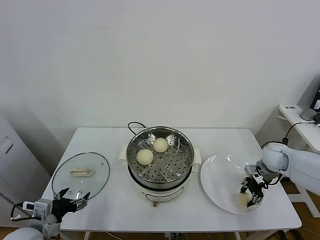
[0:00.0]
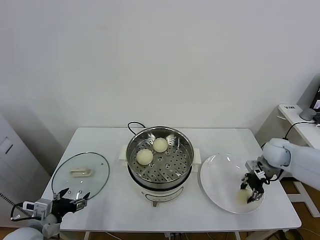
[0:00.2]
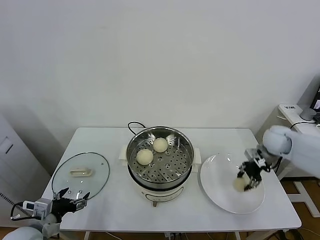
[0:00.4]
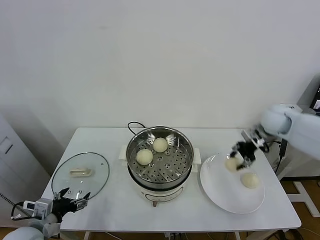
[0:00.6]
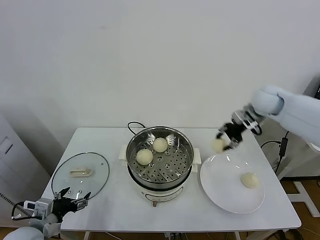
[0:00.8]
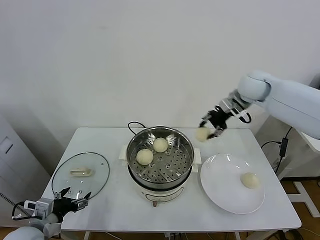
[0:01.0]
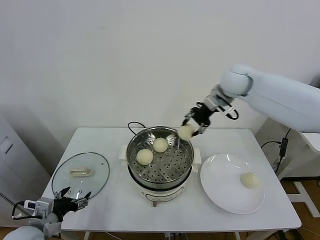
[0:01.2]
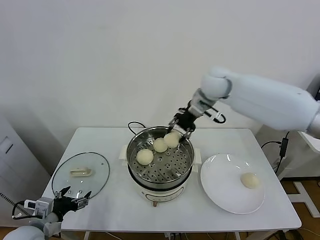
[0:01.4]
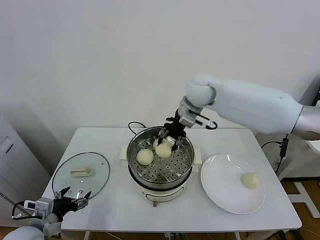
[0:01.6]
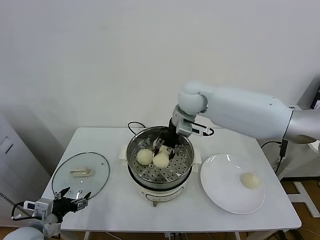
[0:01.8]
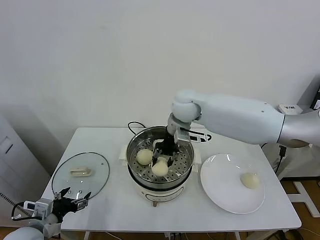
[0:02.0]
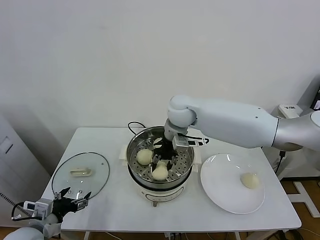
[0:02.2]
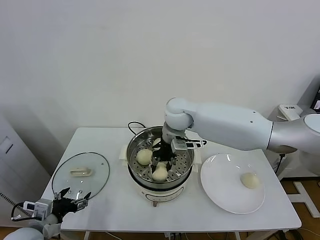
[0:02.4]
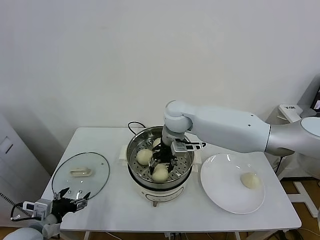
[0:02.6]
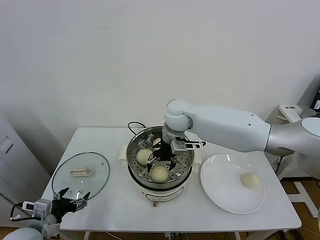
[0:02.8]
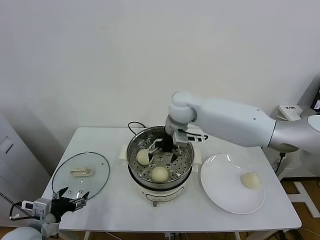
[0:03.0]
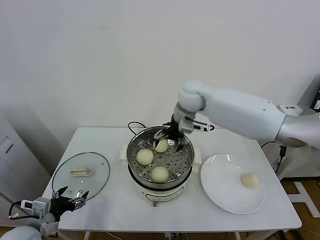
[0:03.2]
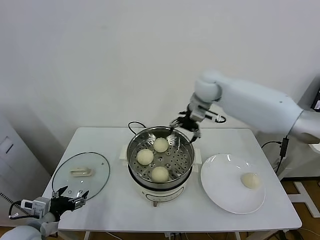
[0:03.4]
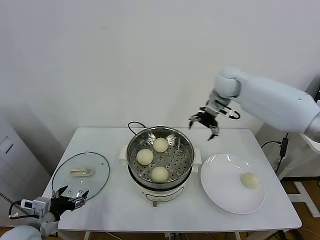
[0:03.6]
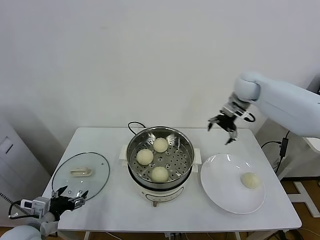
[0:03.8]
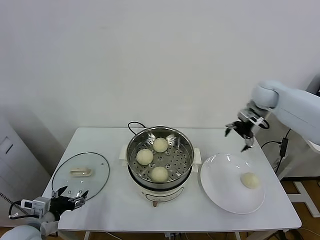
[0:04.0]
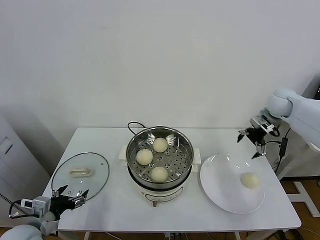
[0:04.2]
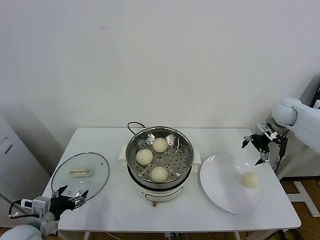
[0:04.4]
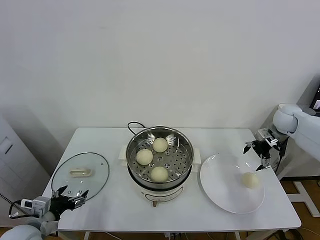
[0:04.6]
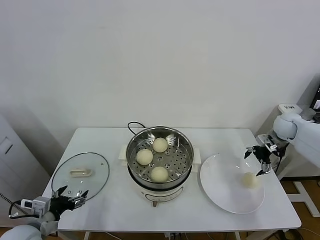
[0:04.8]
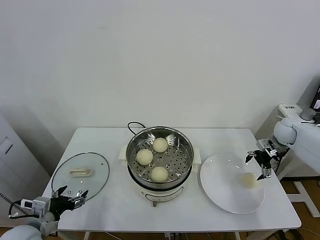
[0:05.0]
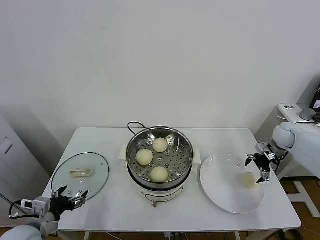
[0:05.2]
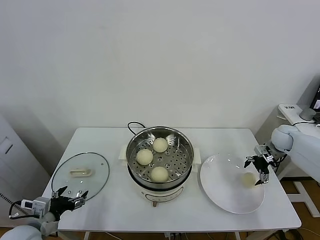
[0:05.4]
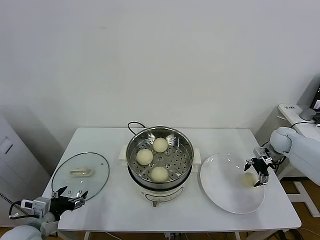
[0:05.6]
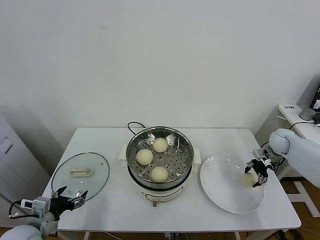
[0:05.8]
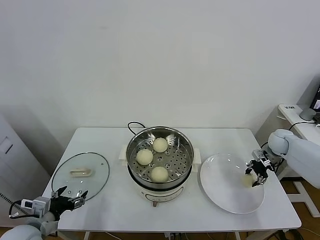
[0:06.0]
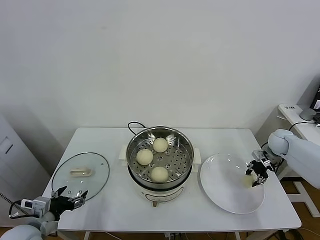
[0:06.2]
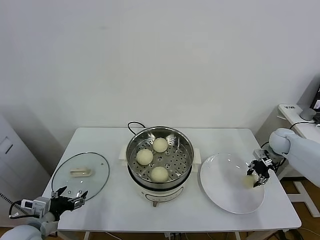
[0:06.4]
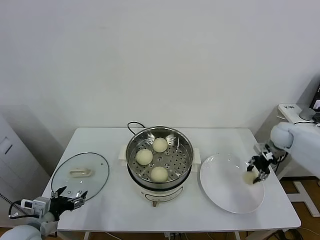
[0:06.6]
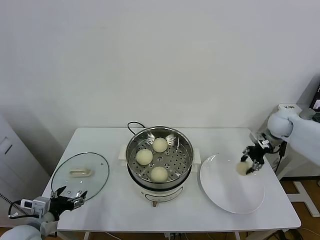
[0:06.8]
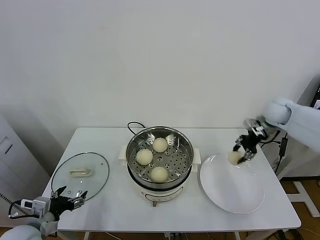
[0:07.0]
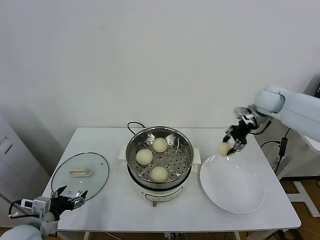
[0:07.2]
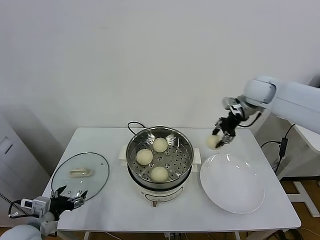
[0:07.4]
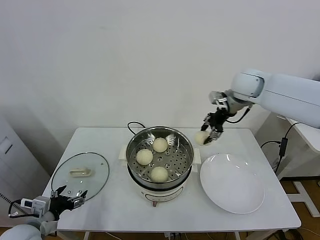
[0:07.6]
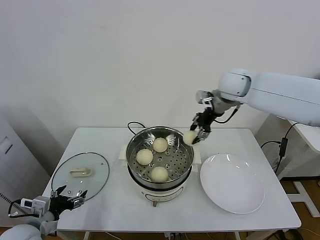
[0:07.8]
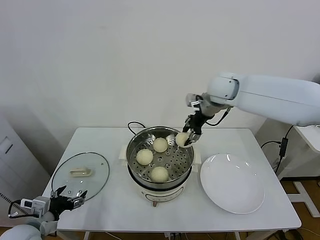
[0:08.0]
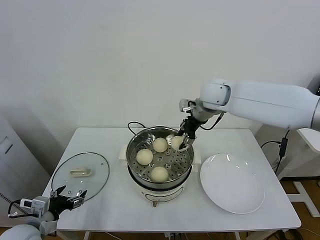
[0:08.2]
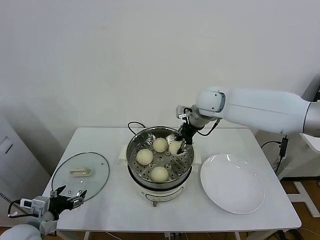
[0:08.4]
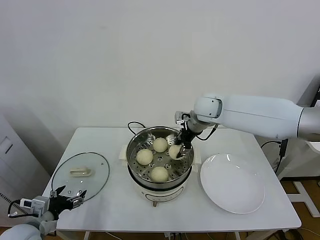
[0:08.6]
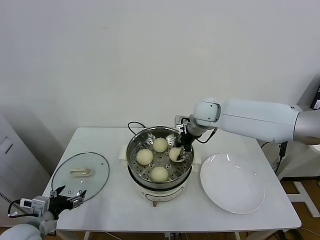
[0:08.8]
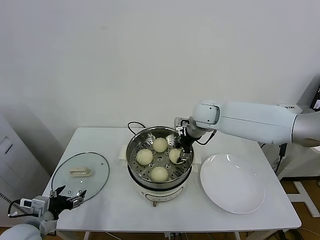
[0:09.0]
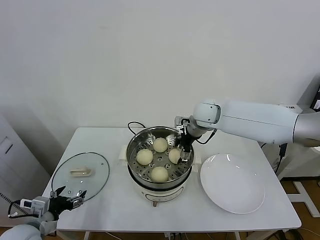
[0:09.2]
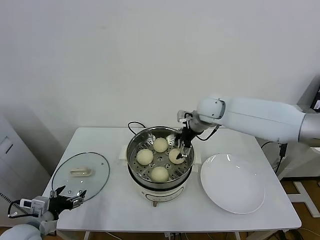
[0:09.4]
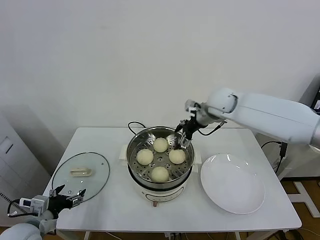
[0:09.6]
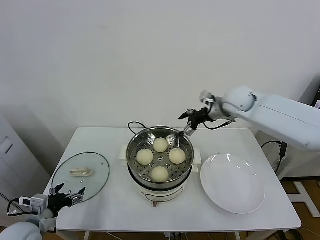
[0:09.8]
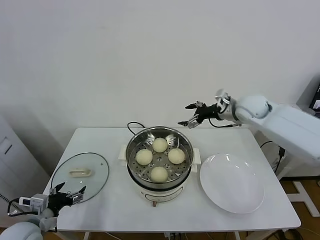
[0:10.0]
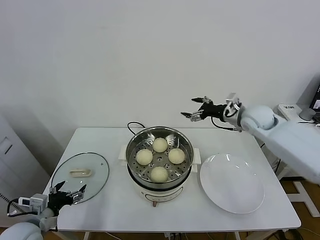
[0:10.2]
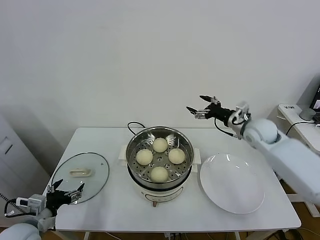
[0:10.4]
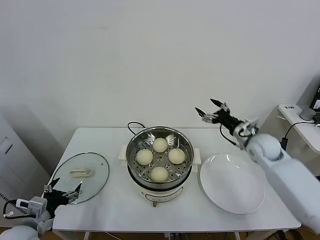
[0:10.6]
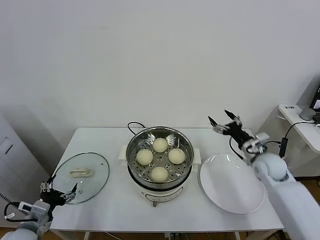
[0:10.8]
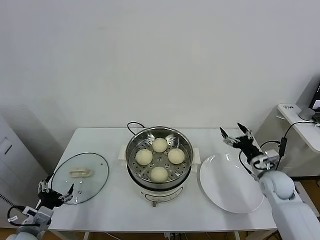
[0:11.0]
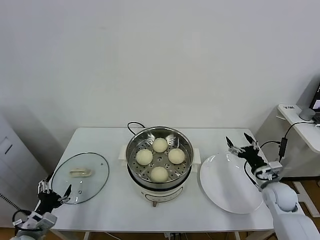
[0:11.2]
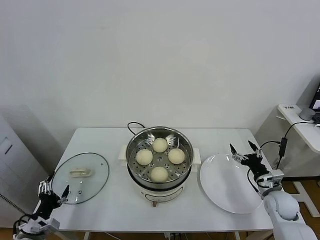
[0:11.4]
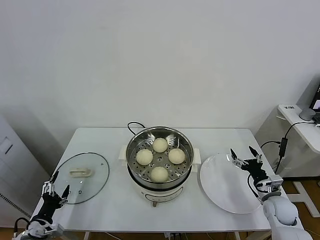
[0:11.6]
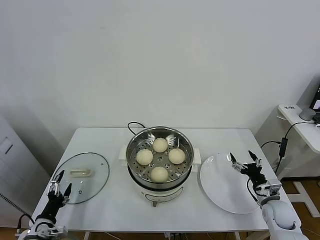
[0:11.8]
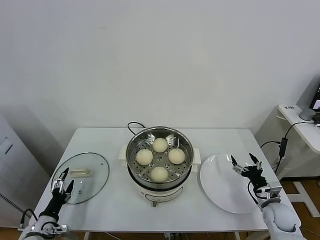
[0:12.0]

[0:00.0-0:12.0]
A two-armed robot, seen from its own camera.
Task of the whole recording: take steamed baozi put them in steamer.
Step, 0:00.0 to 0:02.8: Place the baozi on the steamer with right gripper.
Step, 0:03.0 to 0:06.0: Grasp the baozi in the plate with right gripper.
Step, 0:06.4 to 0:09.4: Place the baozi on the steamer with right gripper.
0:00.0 to 0:01.6: The right gripper is displaced to the left and upward by about 35 cm.
0:01.6 to 0:03.0: The right gripper opens up.
0:03.0 to 0:04.4: The right gripper moves to the right, roughly 40 cm.
0:04.4 to 0:06.0: The right gripper heads downward, covering about 15 cm, and closes up.
0:06.0 to 0:07.6: The right gripper shifts some 30 cm upward and to the left.
0:07.6 to 0:09.0: The right gripper is displaced downward and to the left by approximately 15 cm.
0:09.0 to 0:10.4: The right gripper moves to the right, about 20 cm, and opens up.
0:10.4 to 0:12.0: The right gripper is displaced downward and backward by about 30 cm, while the left gripper travels downward by approximately 15 cm.

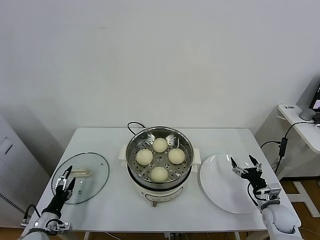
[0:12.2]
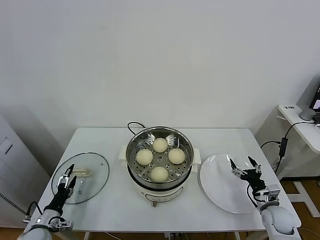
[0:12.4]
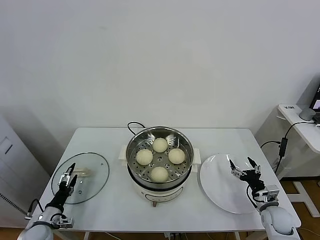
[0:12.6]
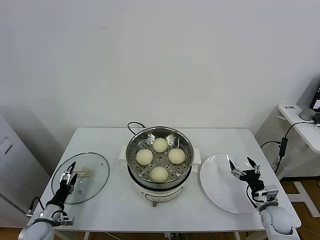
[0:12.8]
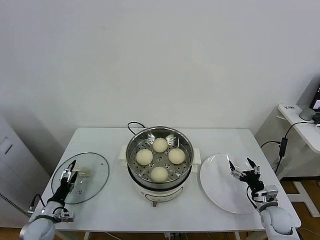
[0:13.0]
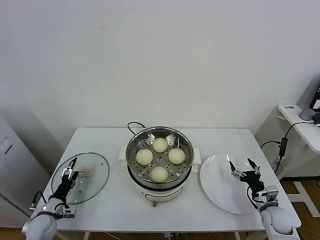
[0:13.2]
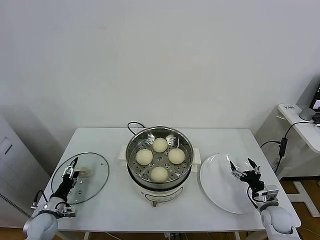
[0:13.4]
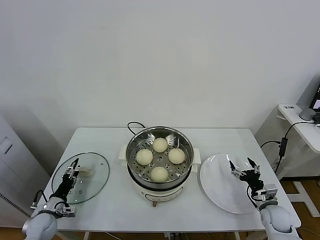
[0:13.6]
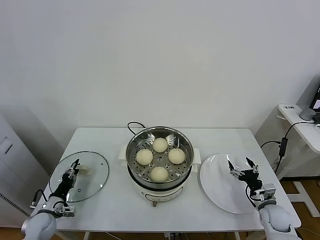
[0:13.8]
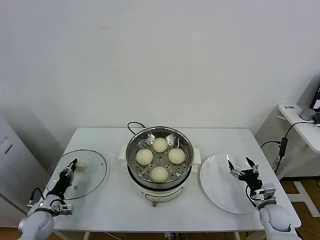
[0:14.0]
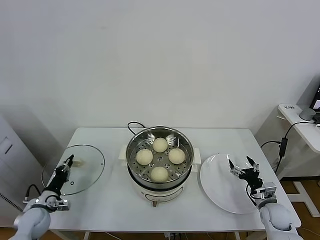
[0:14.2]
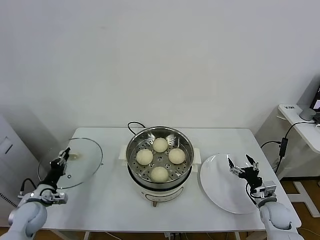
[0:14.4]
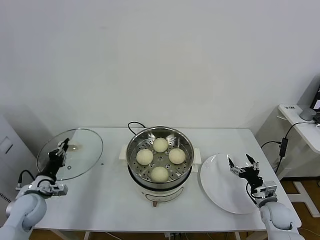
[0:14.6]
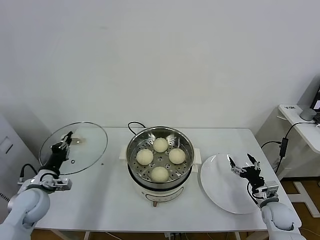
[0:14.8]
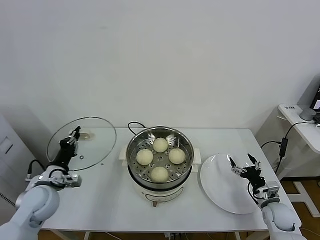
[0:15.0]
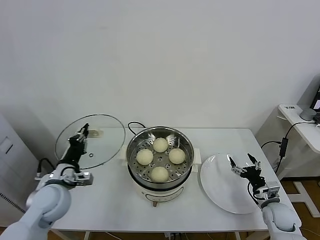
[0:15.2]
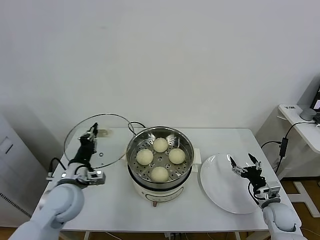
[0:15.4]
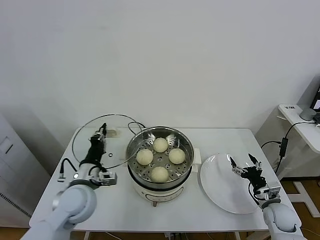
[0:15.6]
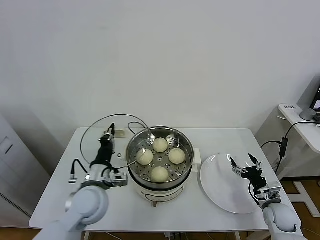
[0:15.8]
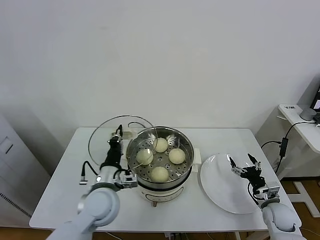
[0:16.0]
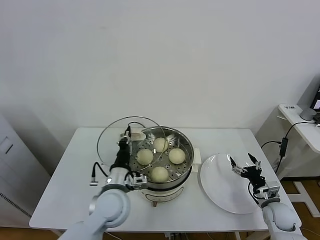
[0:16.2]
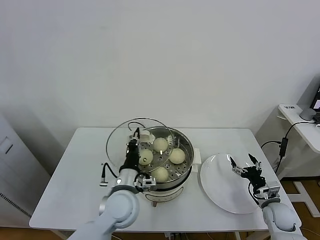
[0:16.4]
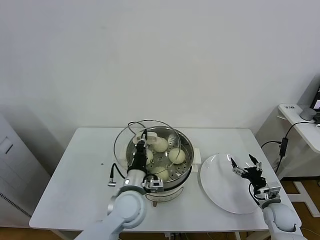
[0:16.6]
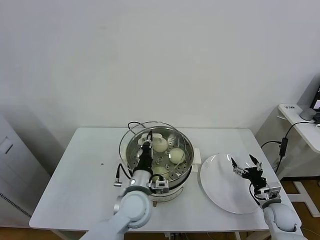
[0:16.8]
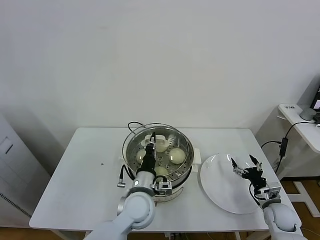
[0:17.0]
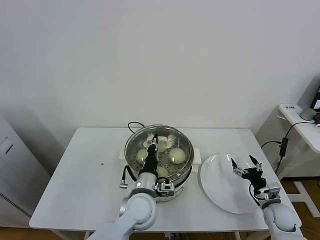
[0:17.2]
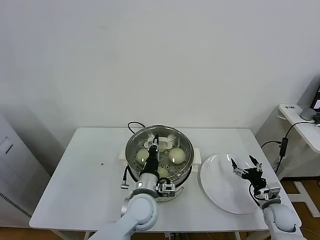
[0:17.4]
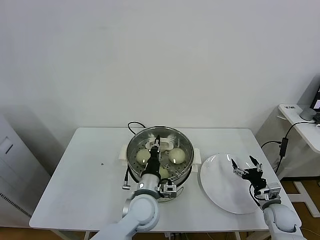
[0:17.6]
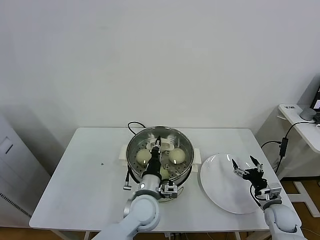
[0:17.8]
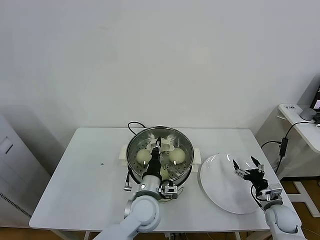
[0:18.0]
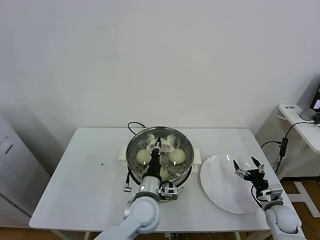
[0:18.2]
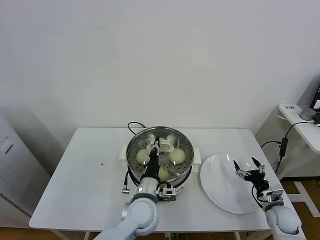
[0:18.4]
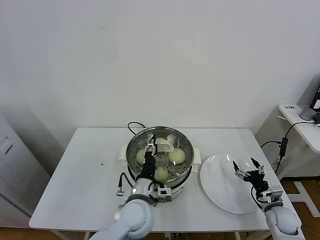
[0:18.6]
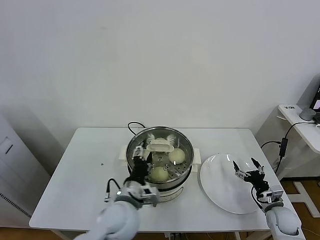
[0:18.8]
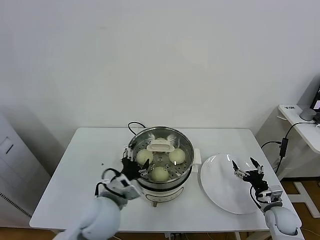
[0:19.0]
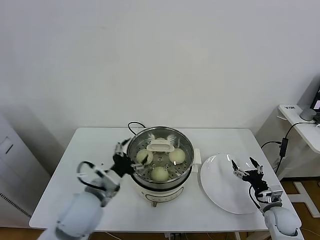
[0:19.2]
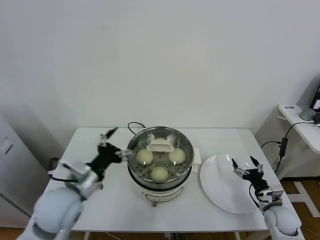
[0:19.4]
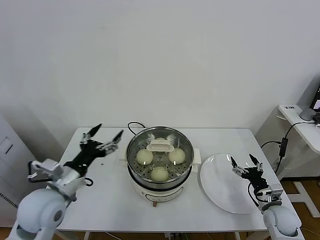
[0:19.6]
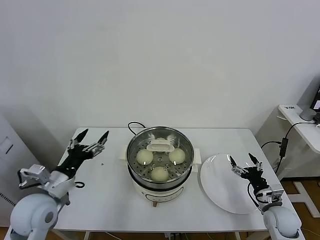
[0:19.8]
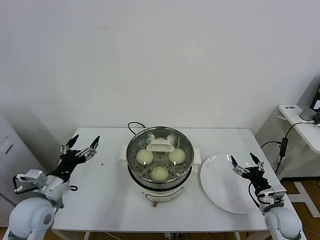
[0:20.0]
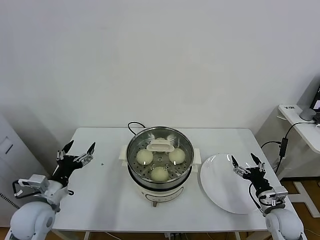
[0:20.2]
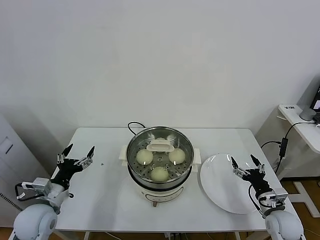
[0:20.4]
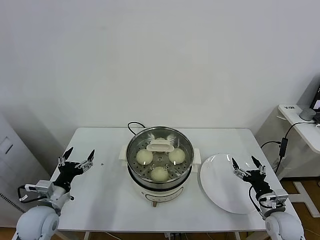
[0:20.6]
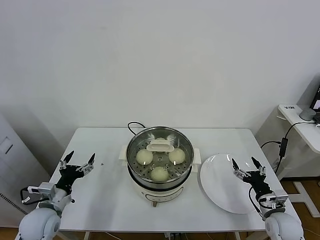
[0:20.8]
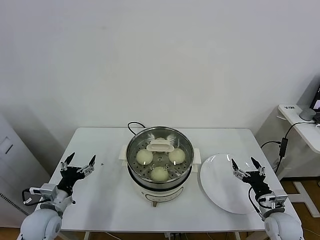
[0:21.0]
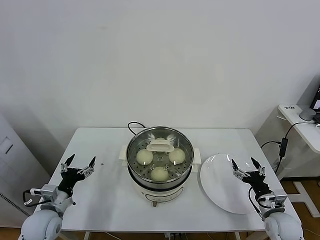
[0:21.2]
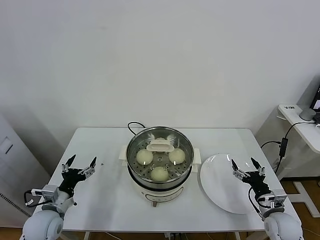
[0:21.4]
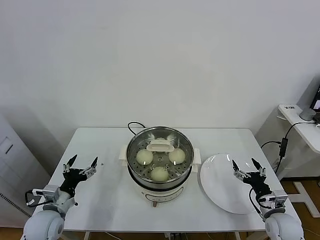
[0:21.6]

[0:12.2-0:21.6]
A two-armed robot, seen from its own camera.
Task of the whole recording: take steamed baozi put them in steamer.
Step, 0:12.2 to 0:14.2: Grasp the pot lid with left gripper.
Step, 0:14.4 to 0:18.8: Place the pot lid on the steamer with left gripper.
0:12.2 to 0:13.8: The left gripper travels forward by approximately 5 cm, and closes its fingers.
0:13.8 to 0:15.4: The left gripper is displaced upward and to the right by some 25 cm, and closes up.
0:15.4 to 0:17.0: The left gripper is displaced to the right by about 20 cm.
0:17.0 to 0:18.4: There are only small adjustments of the grippers.
0:18.4 to 0:20.0: The right gripper ends up approximately 5 cm from where it was. Meanwhile the left gripper travels to the left by roughly 30 cm, and opens its fingers.
0:20.0 to 0:21.6: The left gripper is displaced downward by about 10 cm.
